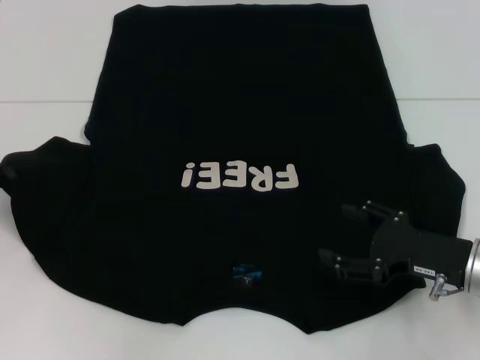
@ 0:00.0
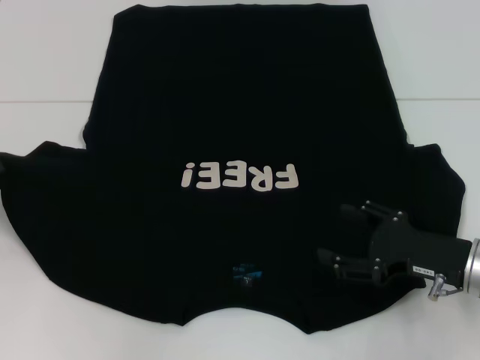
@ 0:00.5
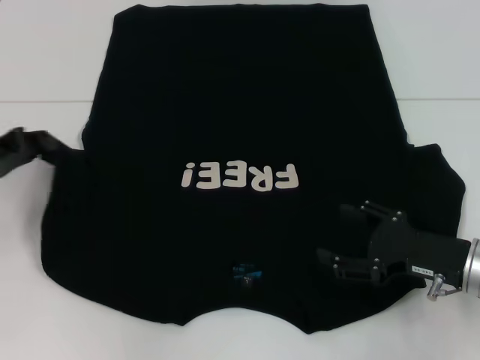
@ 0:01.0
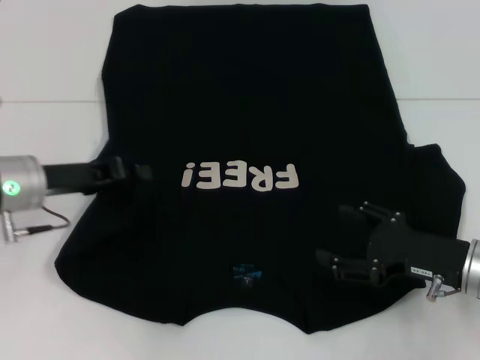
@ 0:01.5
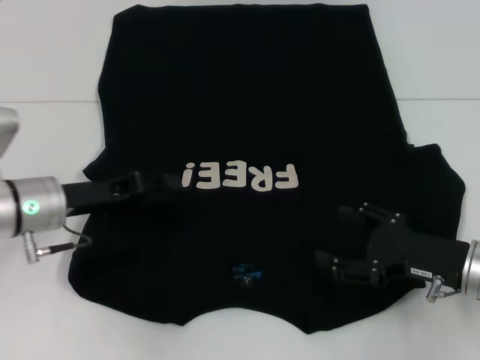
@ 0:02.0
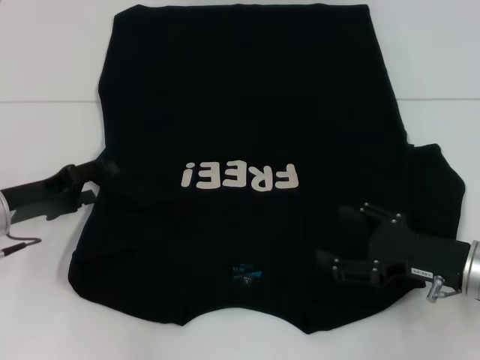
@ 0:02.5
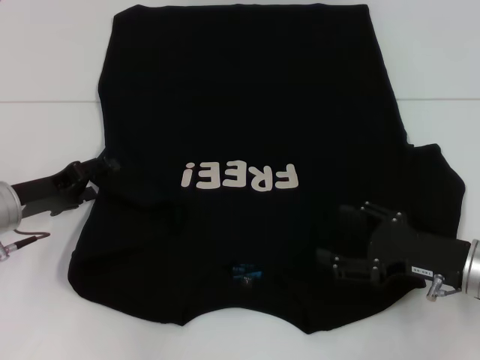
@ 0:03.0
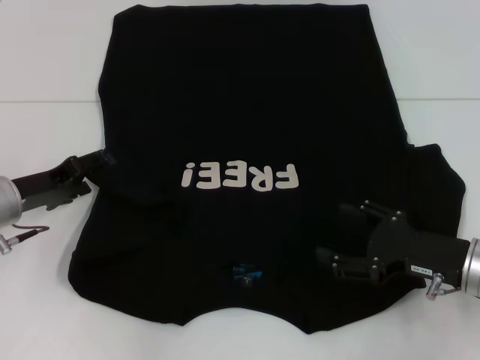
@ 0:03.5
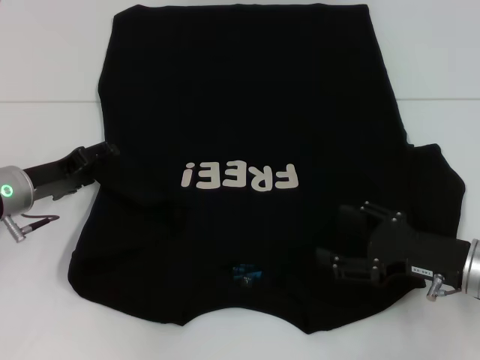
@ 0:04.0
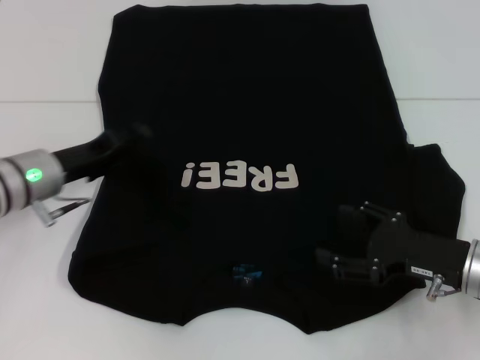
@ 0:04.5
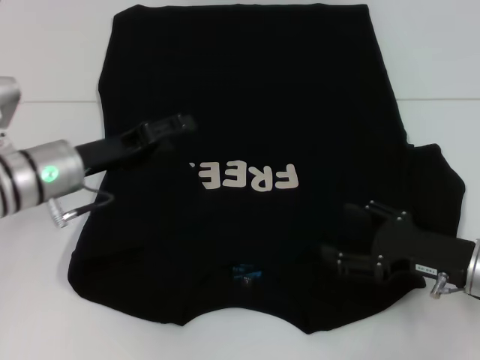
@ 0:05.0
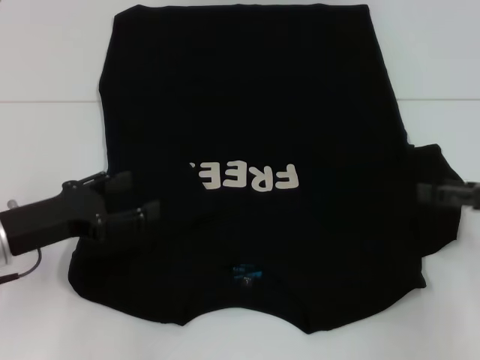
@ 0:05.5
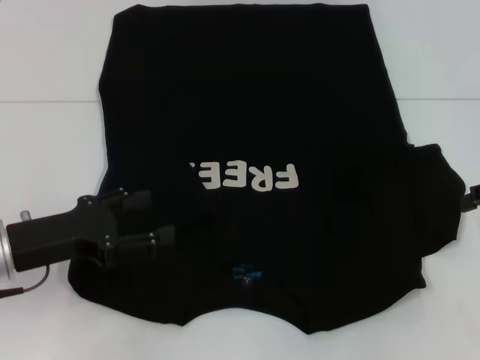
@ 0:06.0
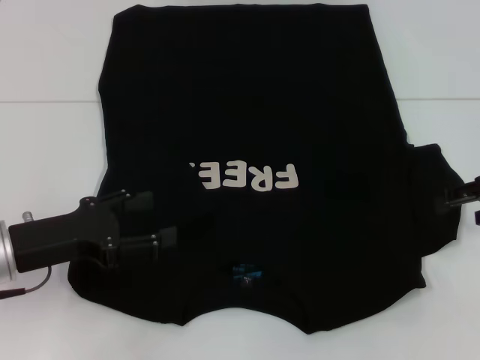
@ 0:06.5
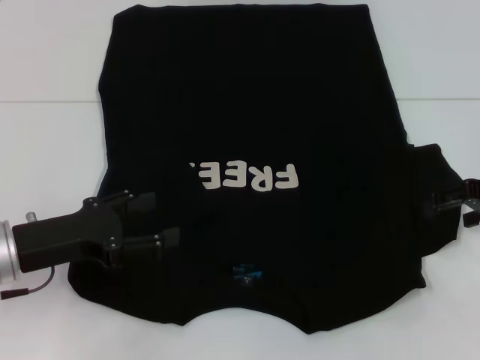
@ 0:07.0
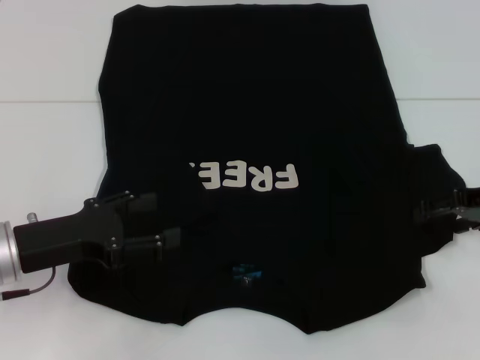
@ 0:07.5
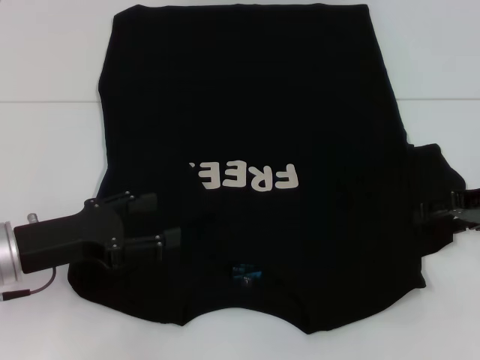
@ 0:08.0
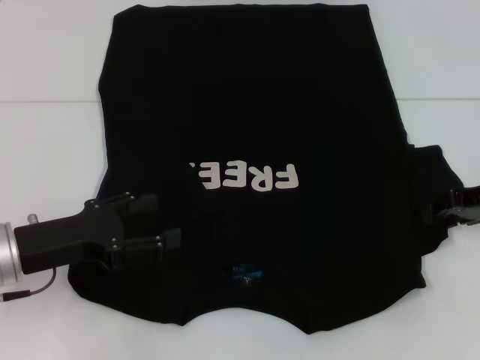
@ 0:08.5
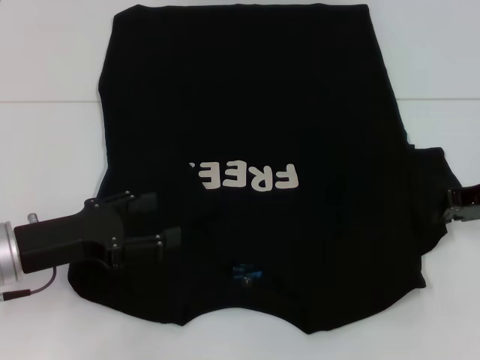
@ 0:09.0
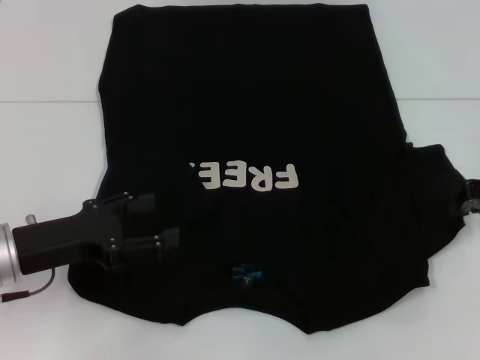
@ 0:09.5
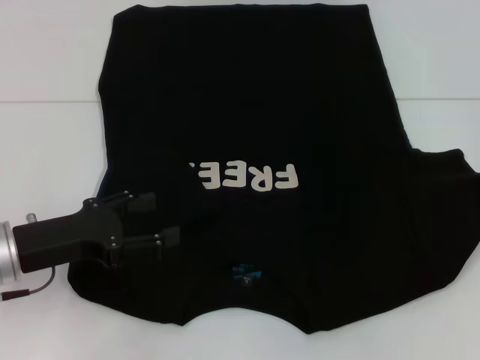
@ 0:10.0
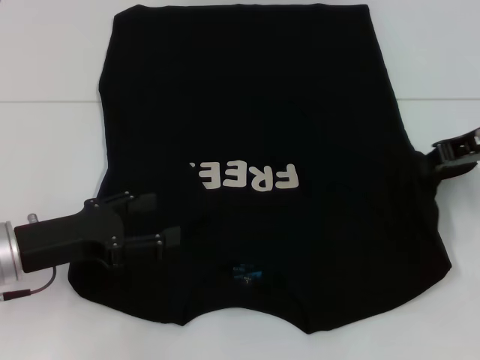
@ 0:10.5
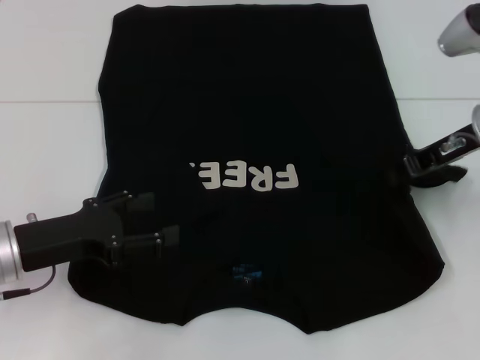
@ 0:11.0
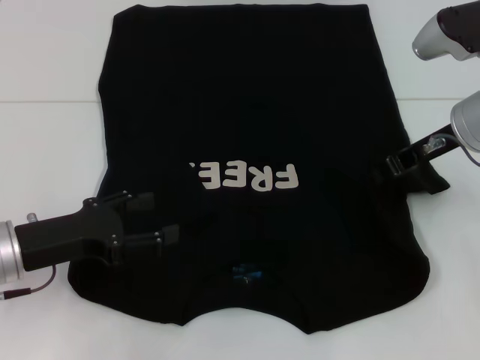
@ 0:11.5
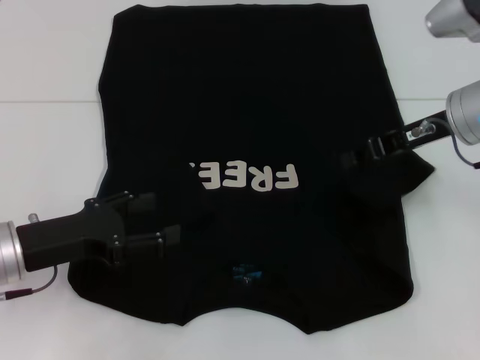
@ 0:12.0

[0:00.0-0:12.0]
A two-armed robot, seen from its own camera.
0:00.0 to 0:02.0: The left gripper heads to the right, covering roughly 15 cm.
0:02.0 to 0:04.0: The left gripper opens.
0:04.0 to 0:06.0: The right gripper moves upward, to the right and forward, roughly 20 cm. Meanwhile the left gripper moves backward, approximately 10 cm.
0:08.0 to 0:10.0: The right gripper moves approximately 5 cm, and closes.
0:10.0 to 0:12.0: The right gripper moves to the left, about 10 cm.

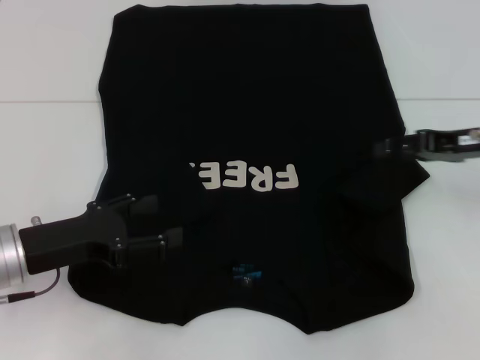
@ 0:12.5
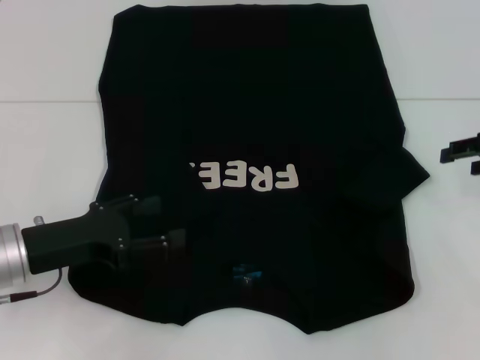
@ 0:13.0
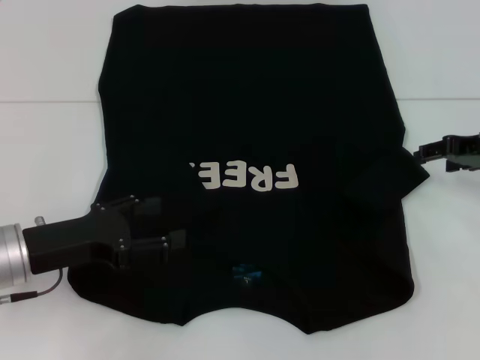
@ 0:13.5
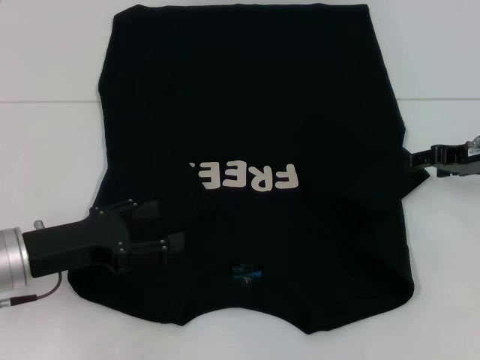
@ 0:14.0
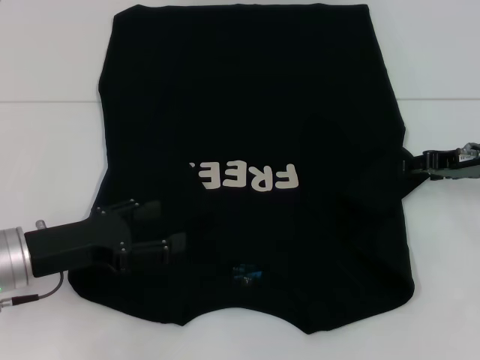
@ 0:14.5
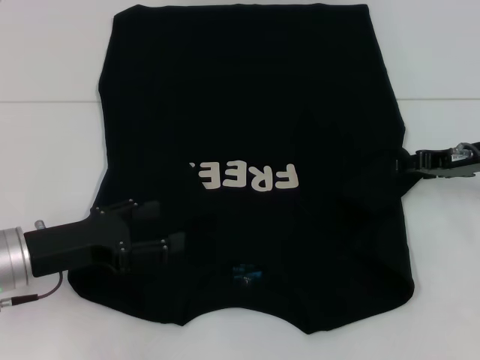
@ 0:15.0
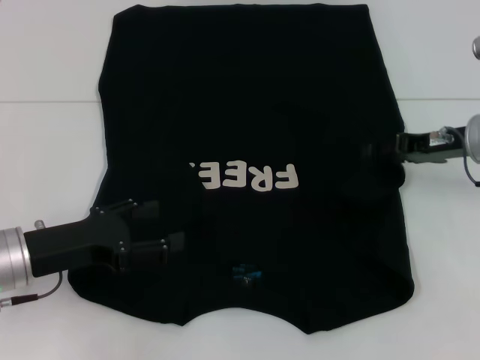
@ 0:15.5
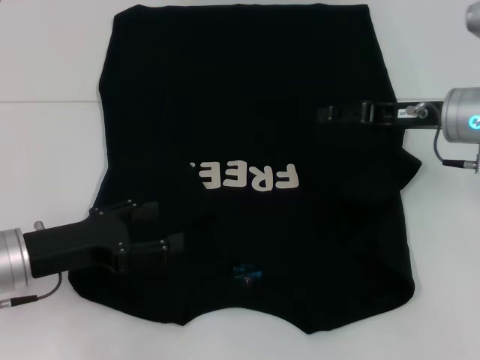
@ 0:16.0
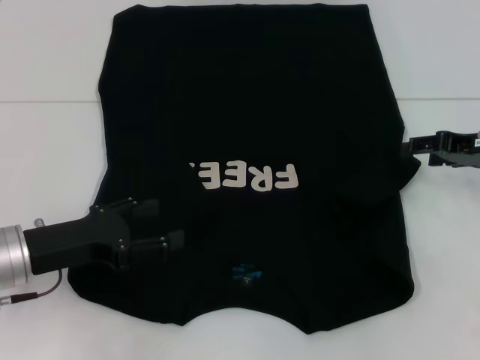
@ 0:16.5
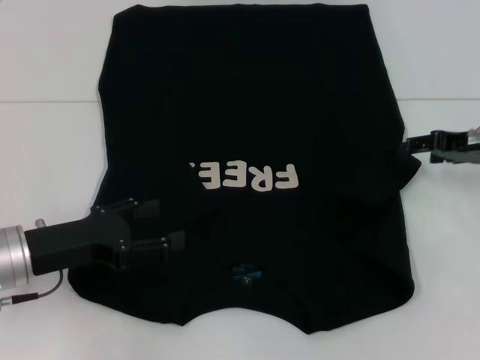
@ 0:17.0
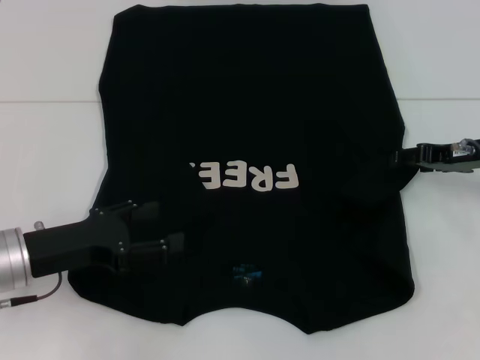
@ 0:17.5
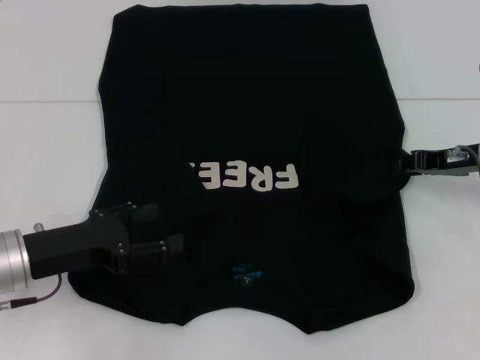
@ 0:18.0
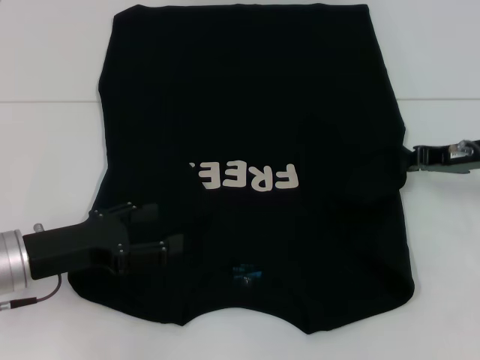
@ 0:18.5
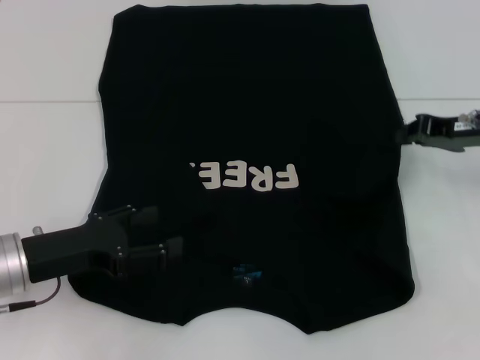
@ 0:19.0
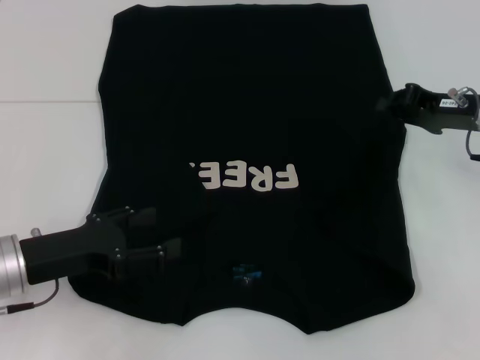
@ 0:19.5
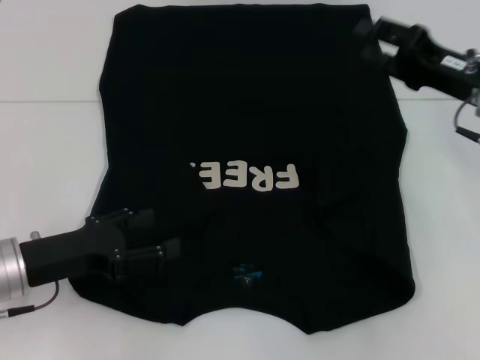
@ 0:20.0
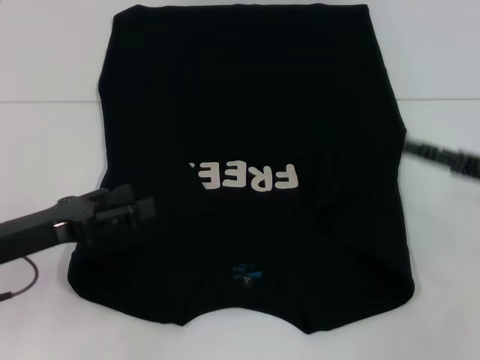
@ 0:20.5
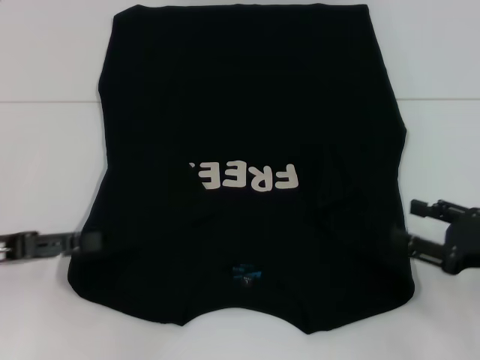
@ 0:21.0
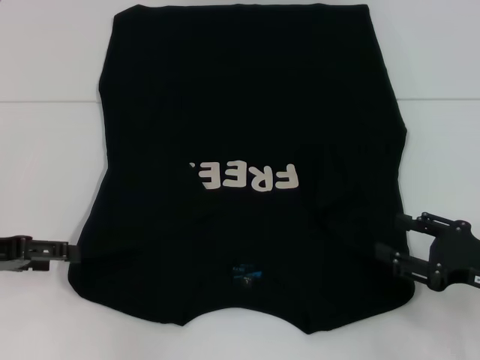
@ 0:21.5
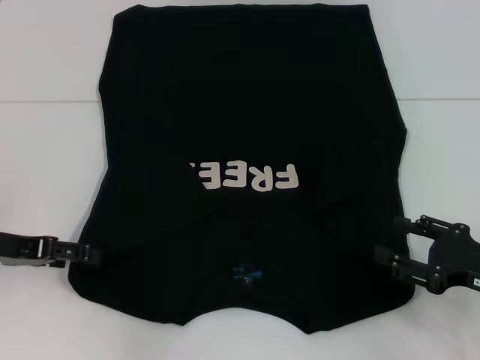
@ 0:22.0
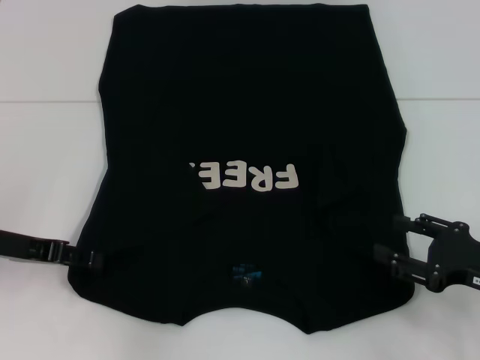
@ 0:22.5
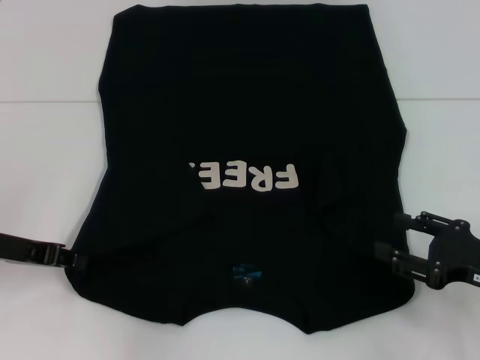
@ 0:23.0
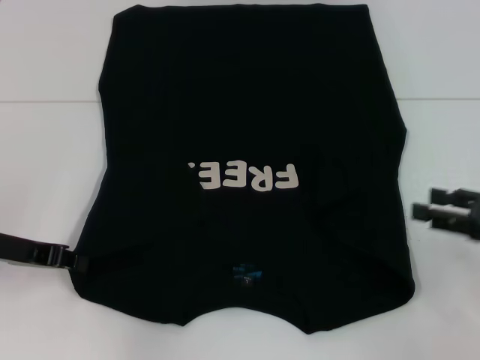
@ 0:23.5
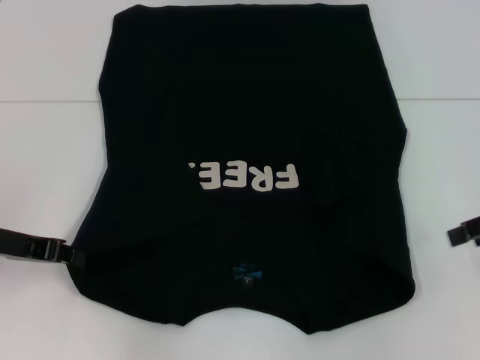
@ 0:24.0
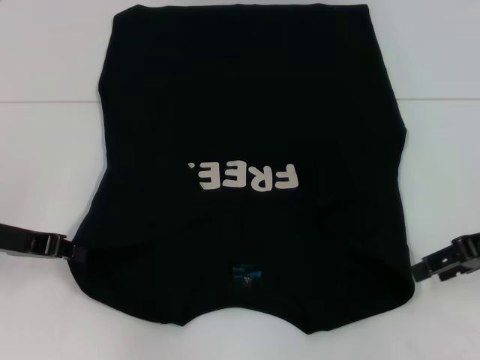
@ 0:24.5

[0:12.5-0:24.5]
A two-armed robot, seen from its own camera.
Step, 0:13.0 to 0:23.5: Grab the bottom left corner with your left hand.
0:14.5 to 0:16.5: The right gripper reaches about 5 cm to the left, then returns.
0:16.5 to 0:18.5: The right gripper closes its fingers.
0:18.5 to 0:20.5: The right gripper goes about 10 cm backward, and opens its fingers.
0:20.5 to 0:22.5: The left gripper moves some 5 cm; the right gripper heads backward, covering roughly 5 cm.
0:22.5 to 0:24.5: The right gripper shifts some 10 cm upward and forward, while the left gripper closes its fingers.

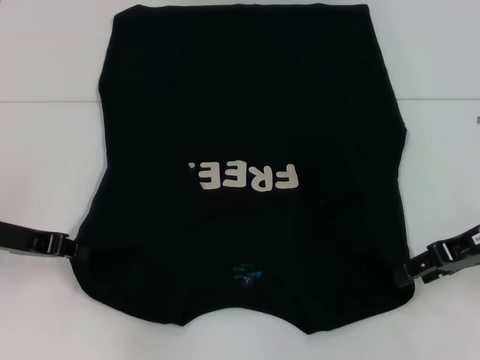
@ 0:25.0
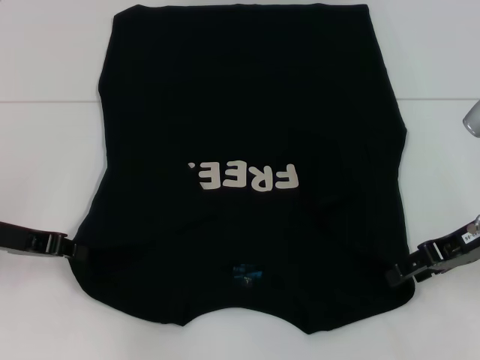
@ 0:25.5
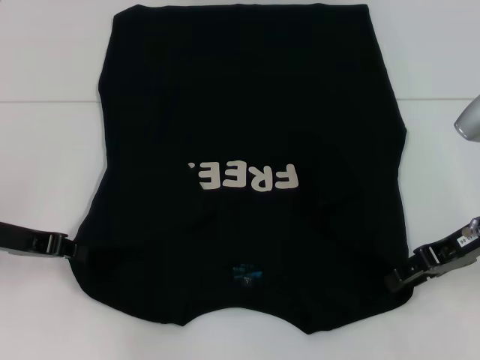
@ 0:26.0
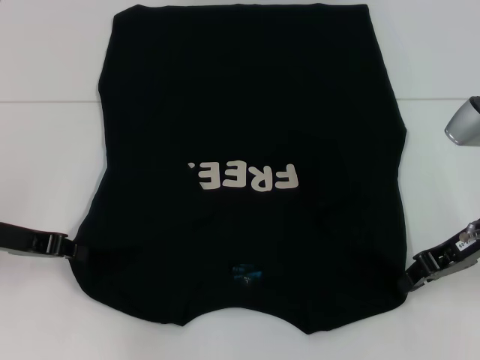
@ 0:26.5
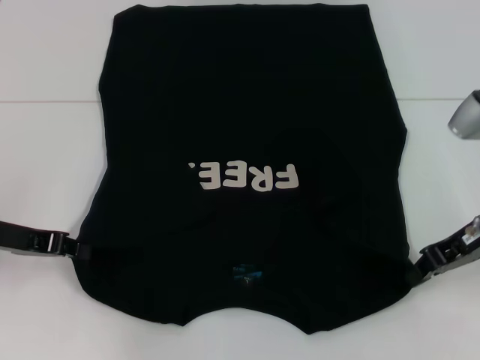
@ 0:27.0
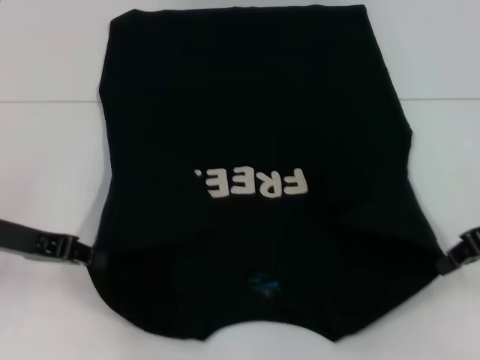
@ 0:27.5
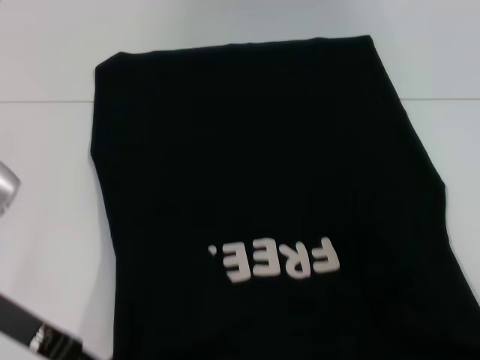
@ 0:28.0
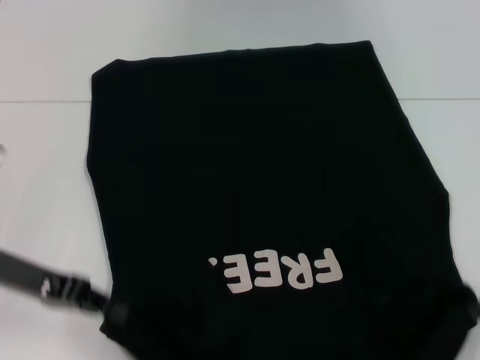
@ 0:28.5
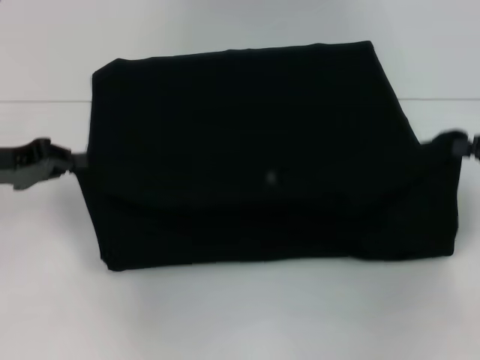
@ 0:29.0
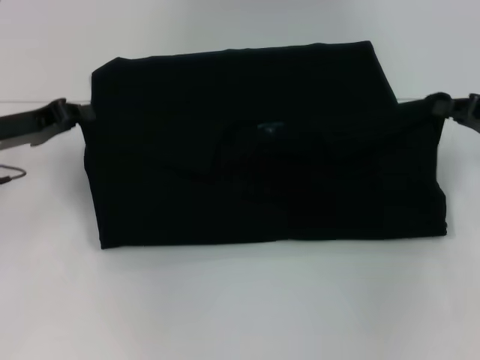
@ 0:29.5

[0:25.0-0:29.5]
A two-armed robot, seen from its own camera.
0:25.0 to 0:27.0: The right gripper closes up.
0:27.0 to 0:29.5: The right gripper shifts some 5 cm to the right. The left gripper moves forward, some 5 cm.
